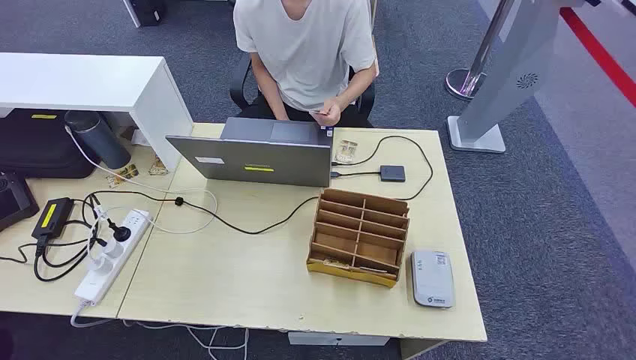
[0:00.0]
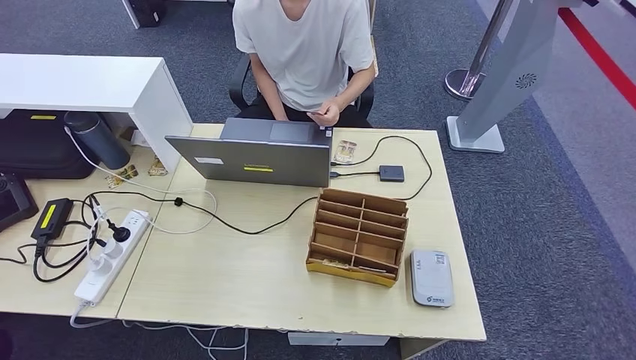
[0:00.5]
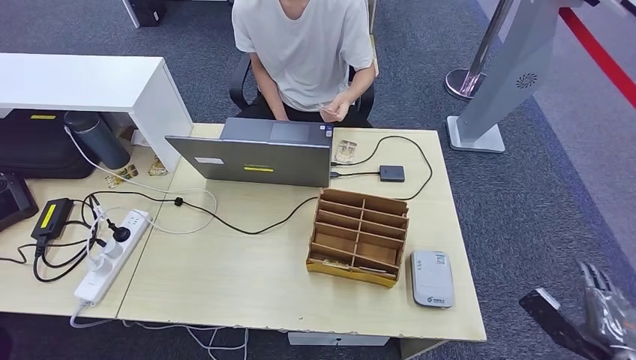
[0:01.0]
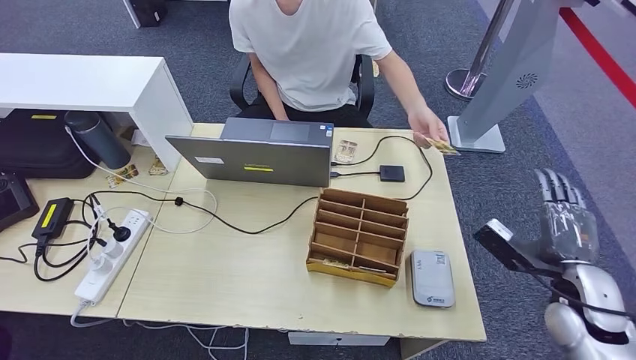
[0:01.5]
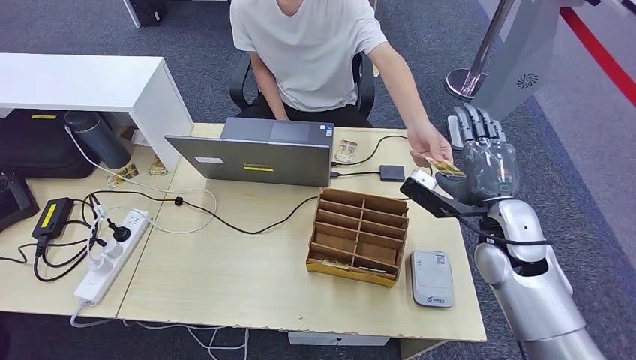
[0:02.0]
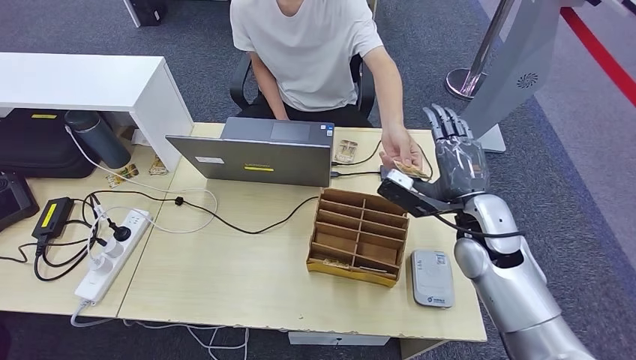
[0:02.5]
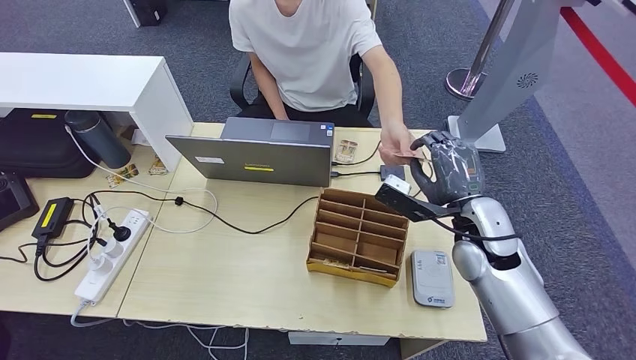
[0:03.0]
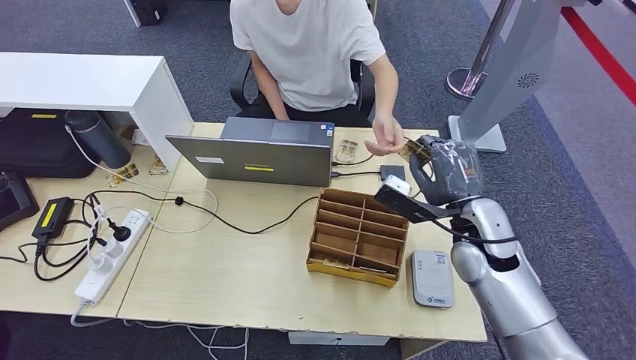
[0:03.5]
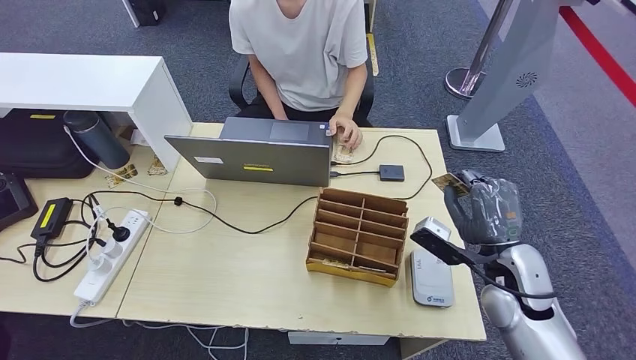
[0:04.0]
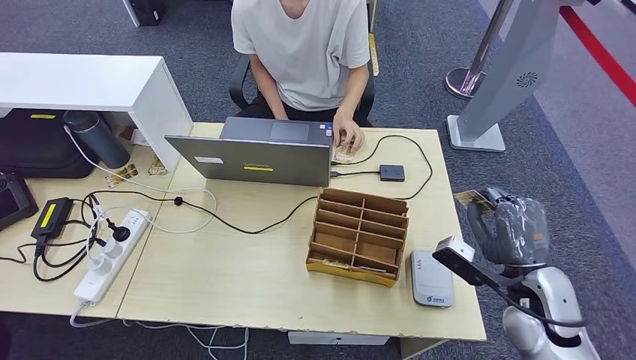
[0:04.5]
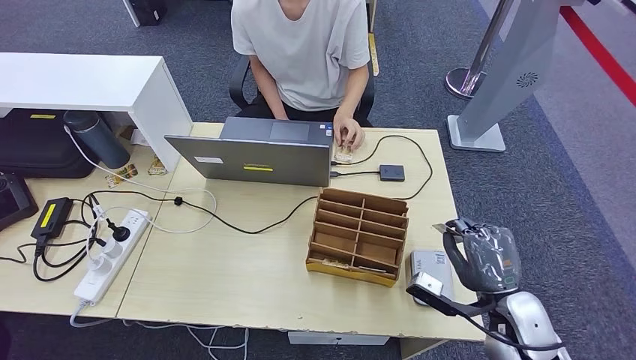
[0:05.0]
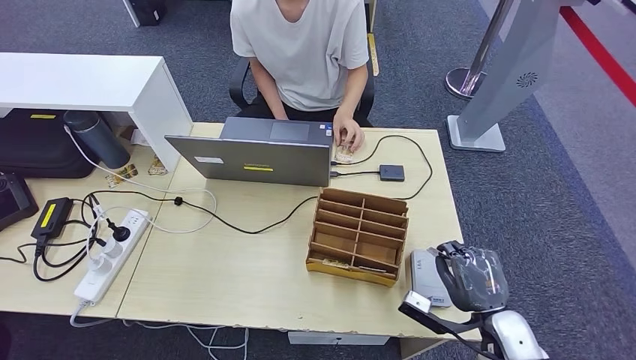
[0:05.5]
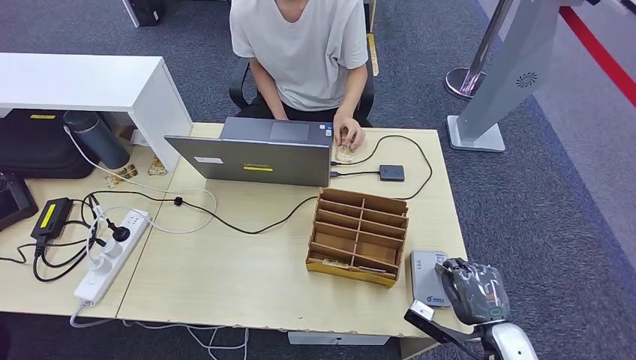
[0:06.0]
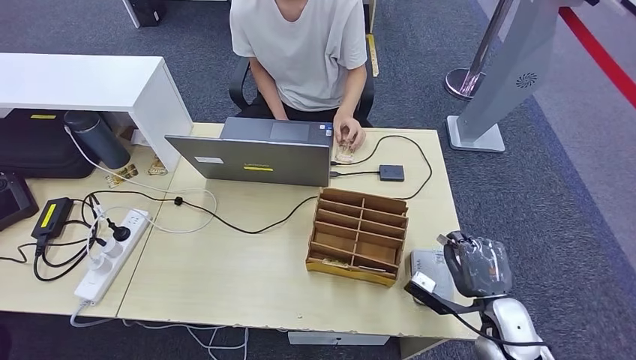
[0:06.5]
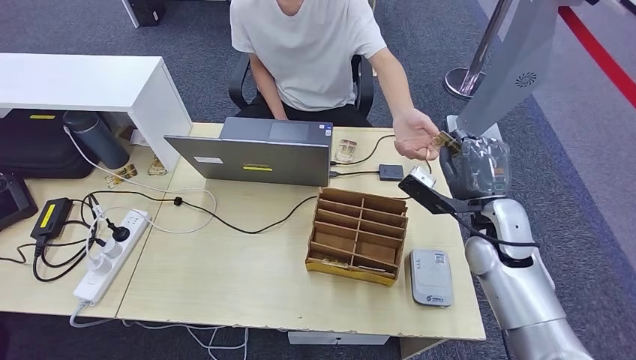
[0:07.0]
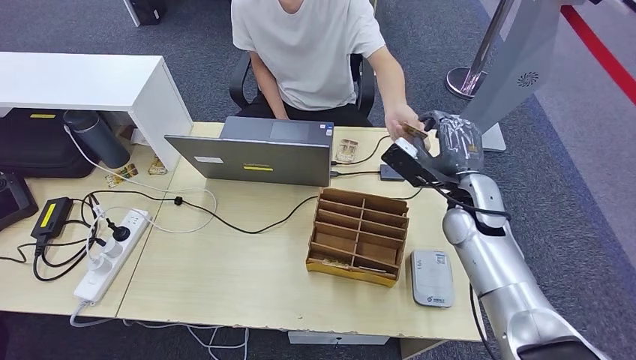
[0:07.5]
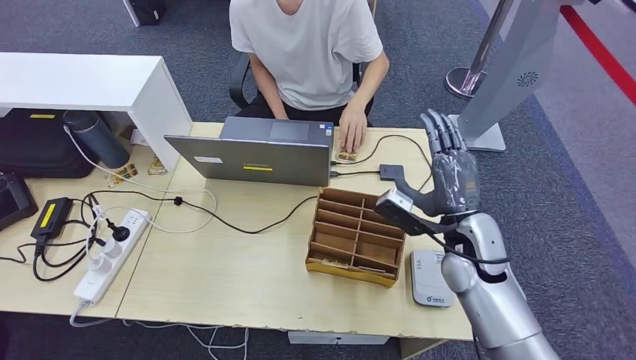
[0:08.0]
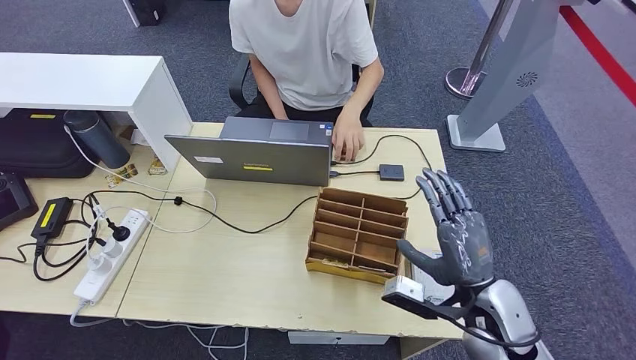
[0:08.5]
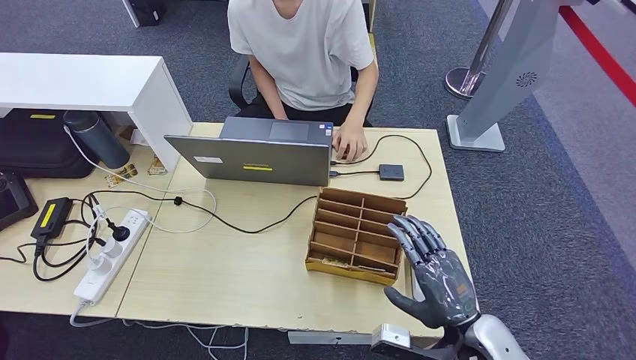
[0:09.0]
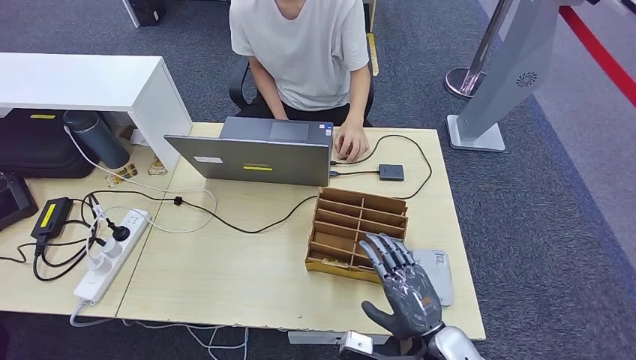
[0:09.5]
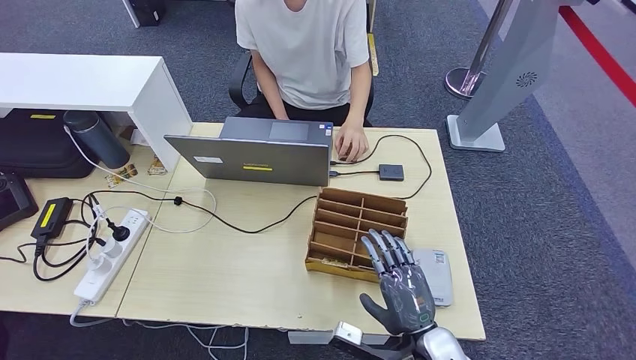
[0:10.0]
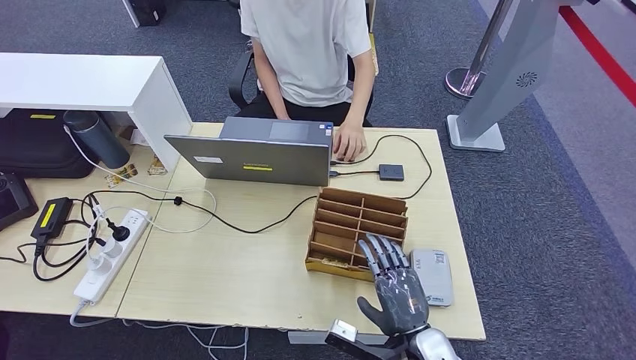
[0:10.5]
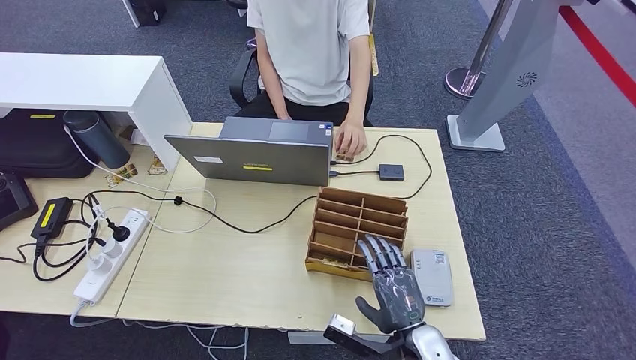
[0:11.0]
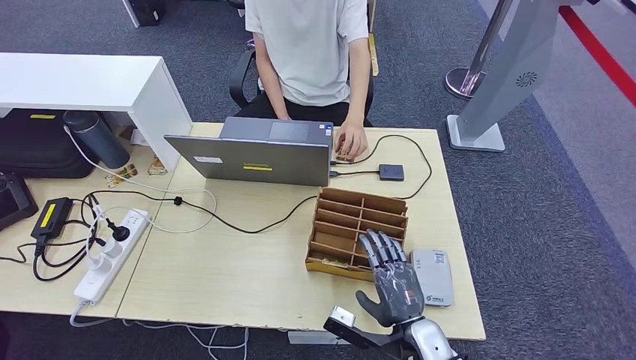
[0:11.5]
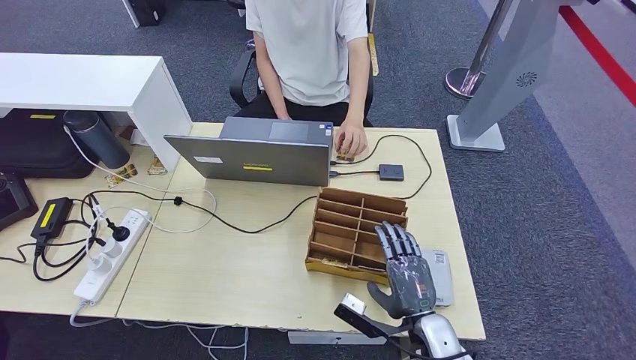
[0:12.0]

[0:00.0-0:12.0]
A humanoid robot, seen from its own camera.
Step, 0:00.0 to 0:04.0: Take the ID card from the person's hand.
Step, 0:04.5 to 0:06.5: Place the ID card on the card reader.
Step, 0:07.0 to 0:08.0: Hand the ID card to the person.
0:02.0 to 0:04.0: The right hand moves backward, about 5 cm.
0:04.0 to 0:06.0: The right hand heads downward and backward, covering approximately 15 cm.
0:06.0 to 0:08.0: The right hand goes roughly 20 cm upward, forward and to the left.
0:08.0 to 0:10.0: The right hand travels backward and downward by about 20 cm.
0:10.0 to 0:12.0: The hands stay close to where they were, moving slightly.

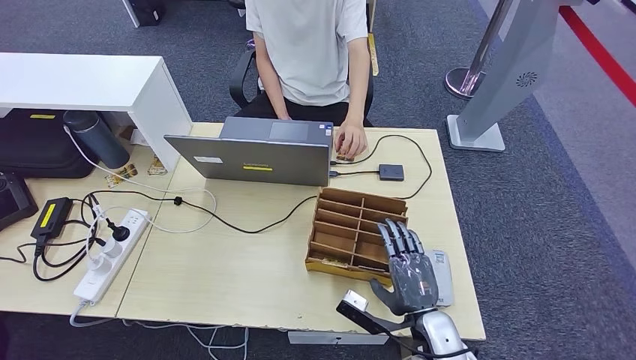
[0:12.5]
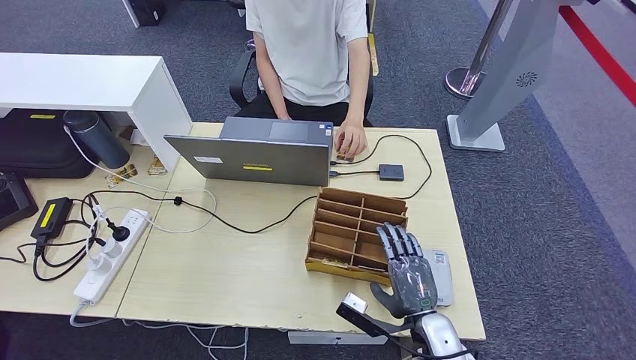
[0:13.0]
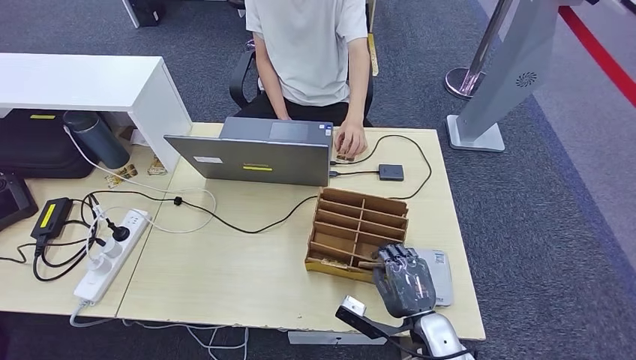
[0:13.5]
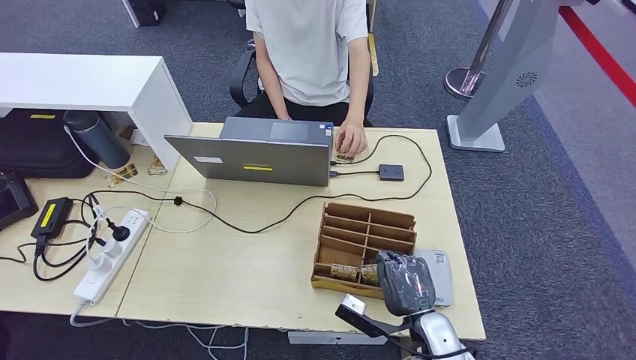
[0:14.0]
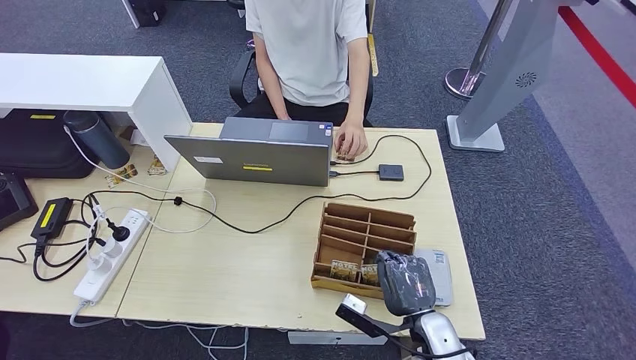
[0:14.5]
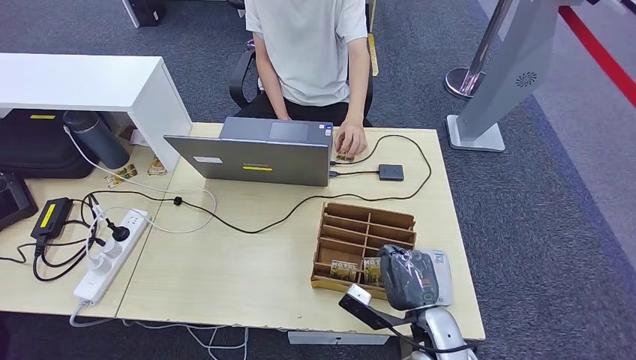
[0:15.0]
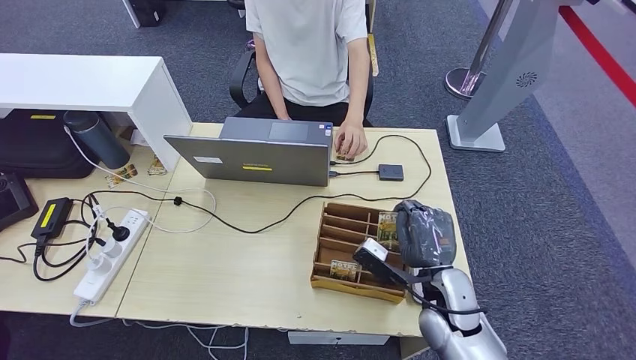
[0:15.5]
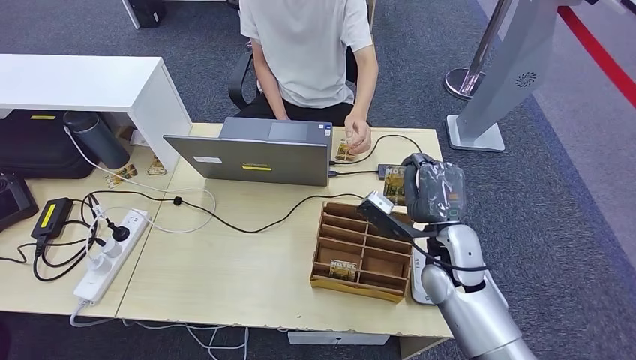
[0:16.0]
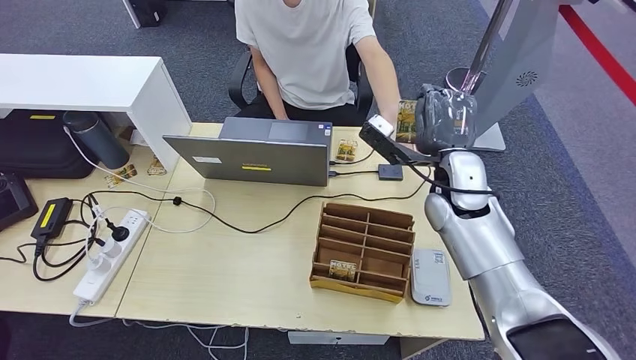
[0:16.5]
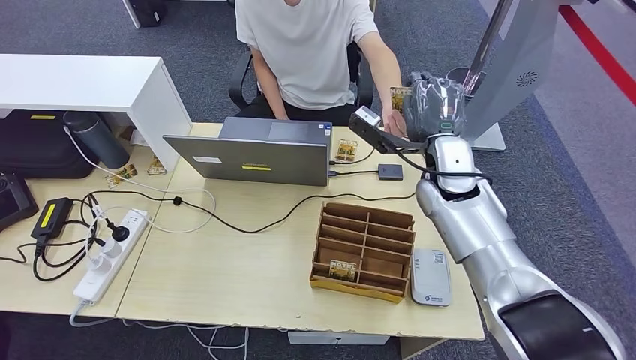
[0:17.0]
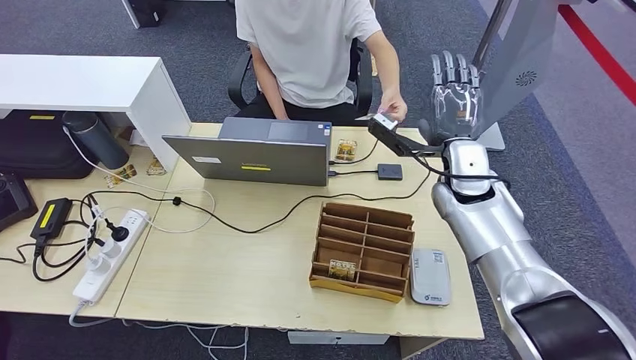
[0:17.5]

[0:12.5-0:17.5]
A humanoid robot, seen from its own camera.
Step, 0:14.5 to 0:17.5: Hand the room key to the person.
0:12.5 to 0:15.0: Both hands stay about where they are.
0:15.0 to 0:17.5: The right hand goes approximately 30 cm forward and upward.

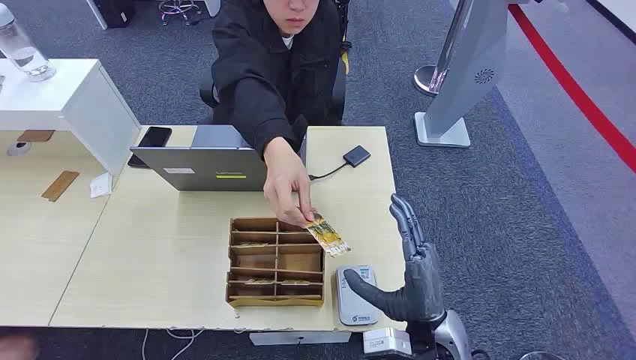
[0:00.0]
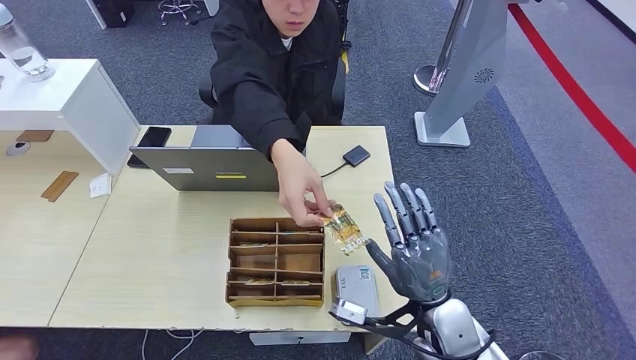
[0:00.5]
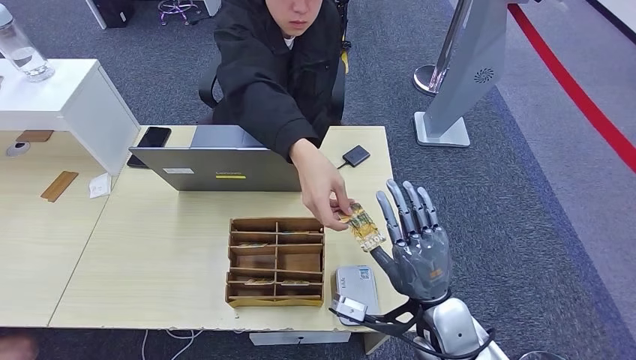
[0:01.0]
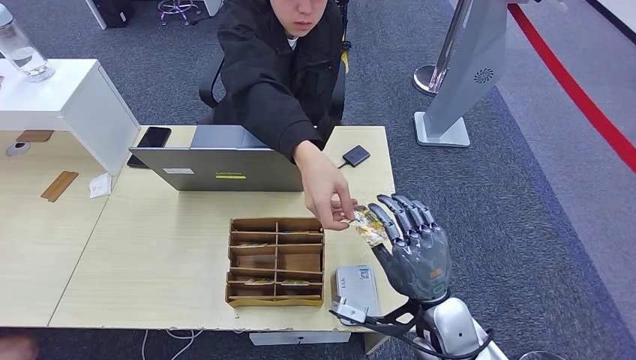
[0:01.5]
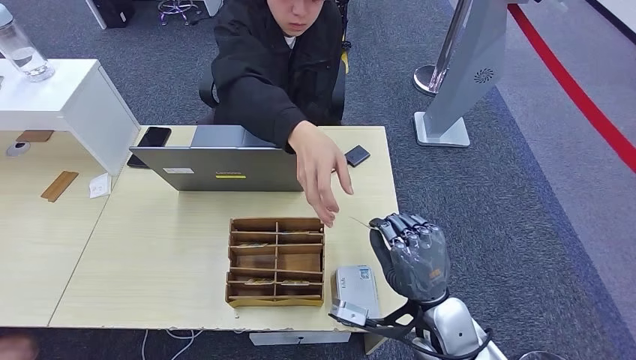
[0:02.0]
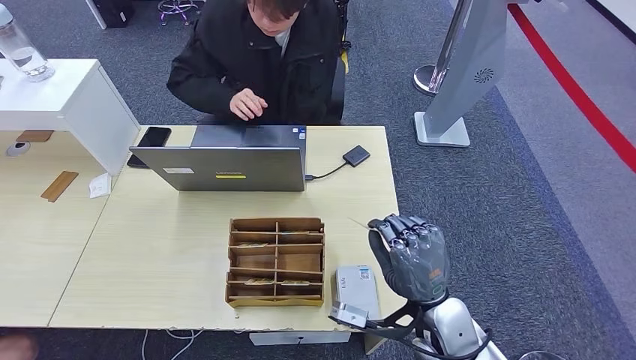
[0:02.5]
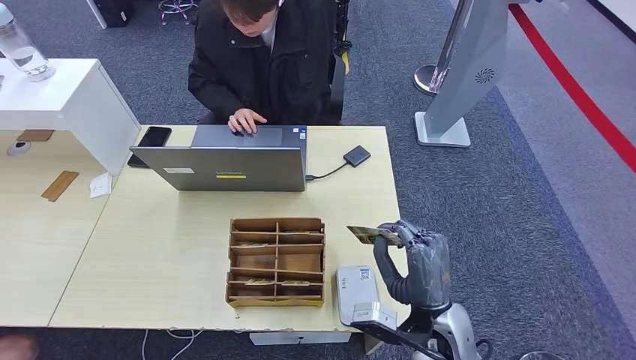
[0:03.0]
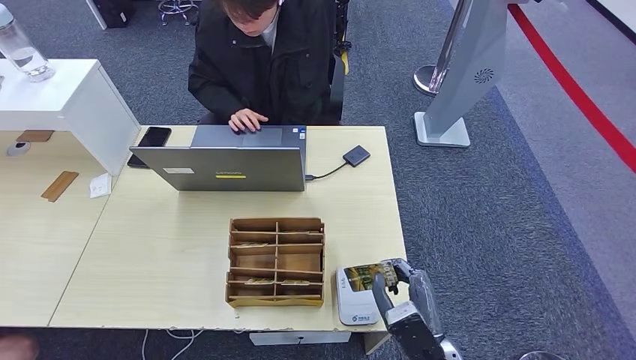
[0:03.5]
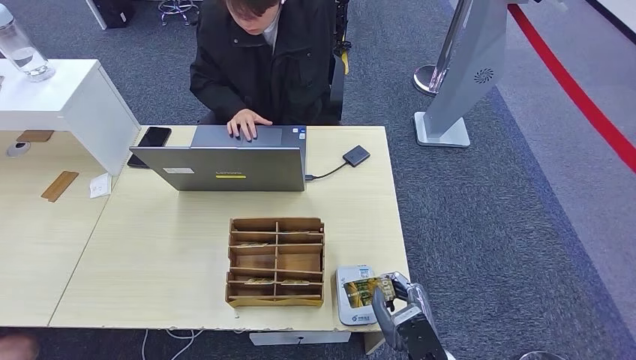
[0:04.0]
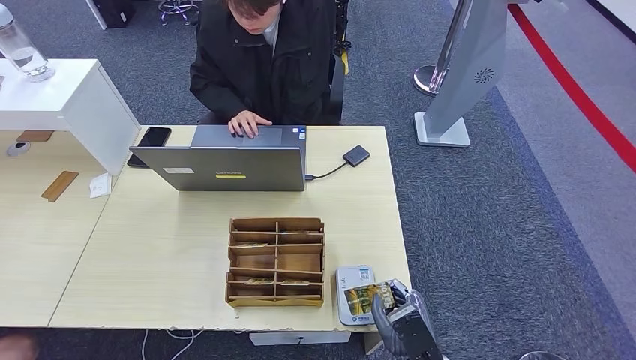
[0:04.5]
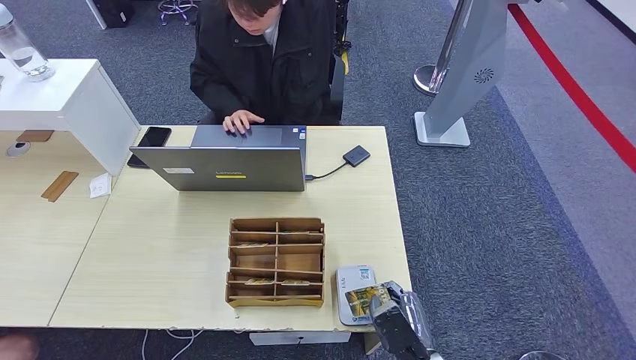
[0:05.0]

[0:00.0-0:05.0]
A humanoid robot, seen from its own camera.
Step, 0:00.0 to 0:02.5: Take the ID card from the person's hand.
0:02.5 to 0:05.0: The right hand goes some 15 cm downward and backward.
